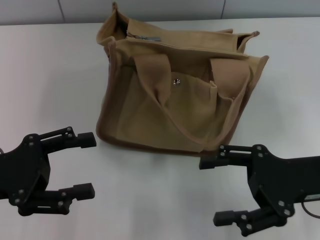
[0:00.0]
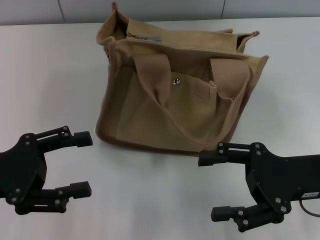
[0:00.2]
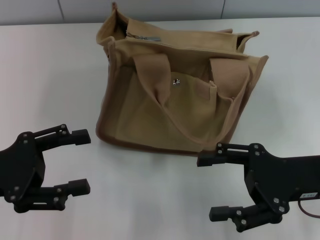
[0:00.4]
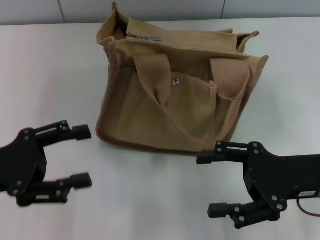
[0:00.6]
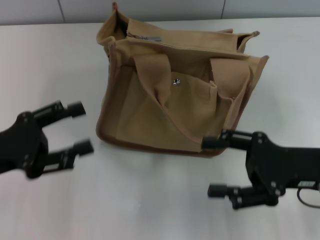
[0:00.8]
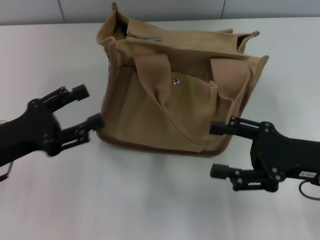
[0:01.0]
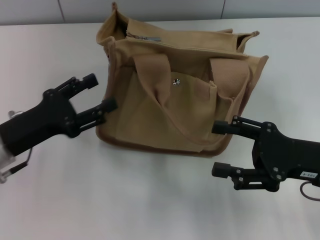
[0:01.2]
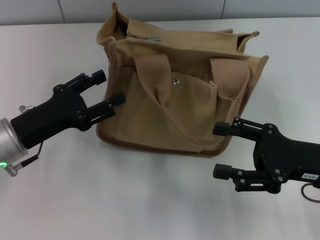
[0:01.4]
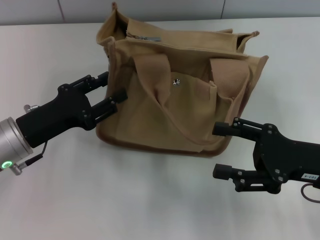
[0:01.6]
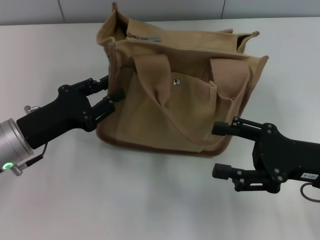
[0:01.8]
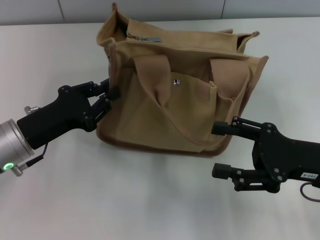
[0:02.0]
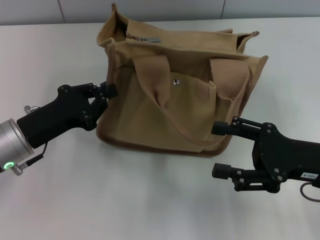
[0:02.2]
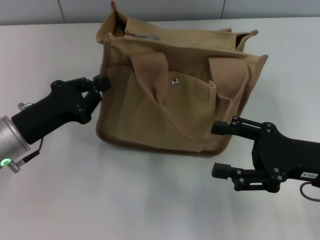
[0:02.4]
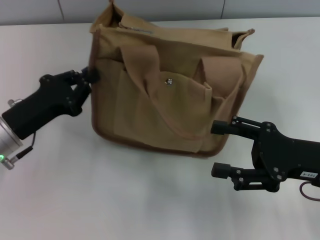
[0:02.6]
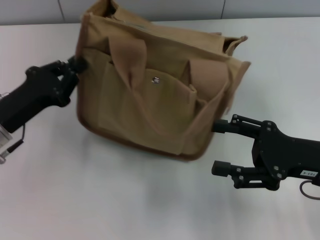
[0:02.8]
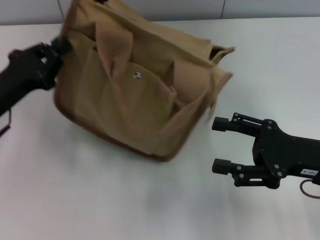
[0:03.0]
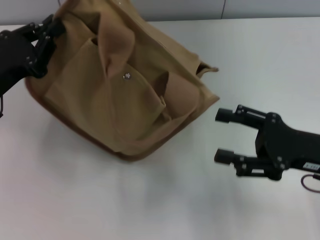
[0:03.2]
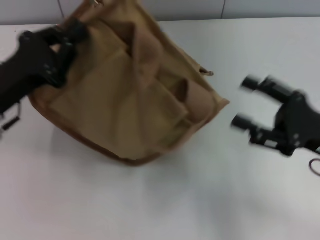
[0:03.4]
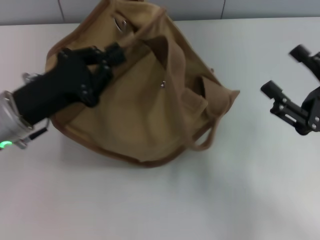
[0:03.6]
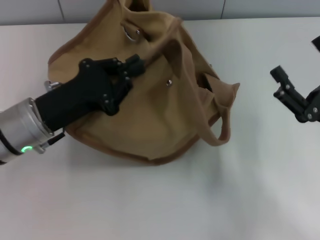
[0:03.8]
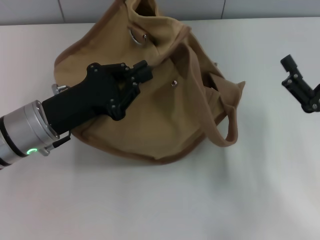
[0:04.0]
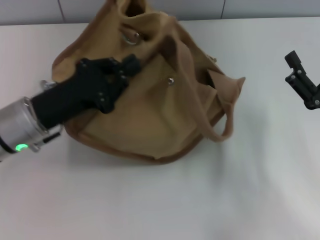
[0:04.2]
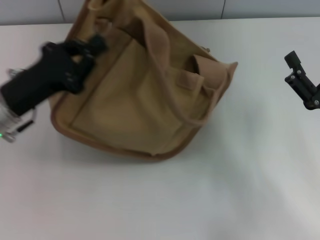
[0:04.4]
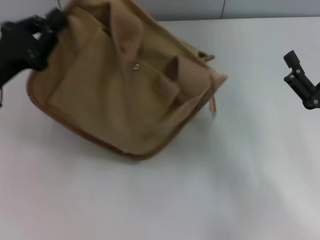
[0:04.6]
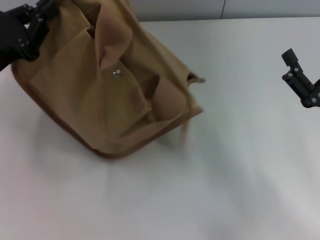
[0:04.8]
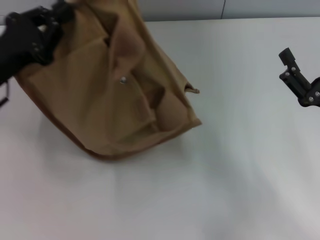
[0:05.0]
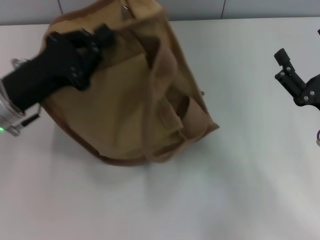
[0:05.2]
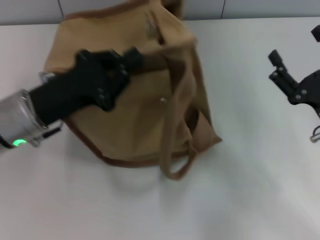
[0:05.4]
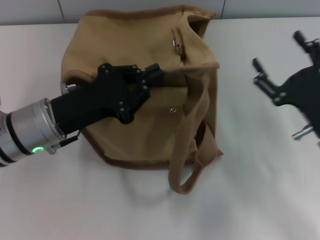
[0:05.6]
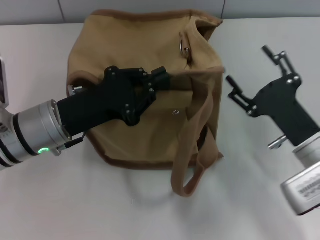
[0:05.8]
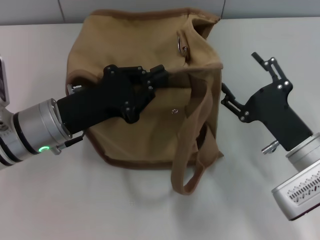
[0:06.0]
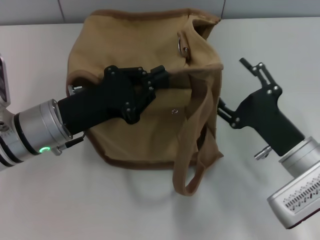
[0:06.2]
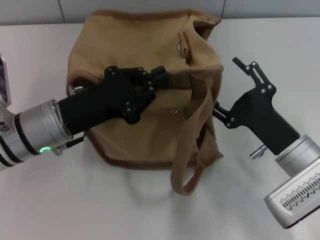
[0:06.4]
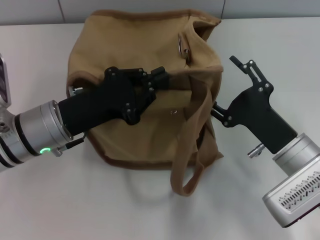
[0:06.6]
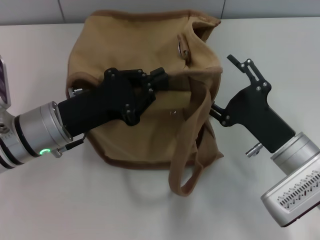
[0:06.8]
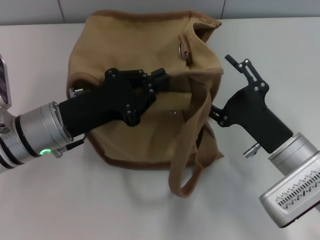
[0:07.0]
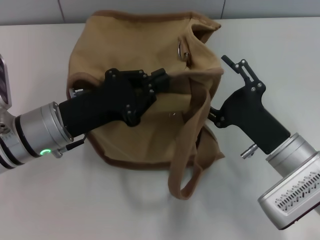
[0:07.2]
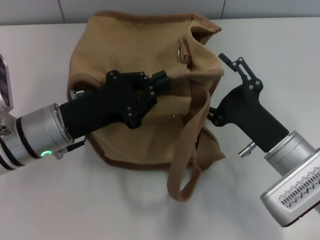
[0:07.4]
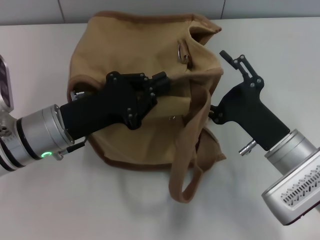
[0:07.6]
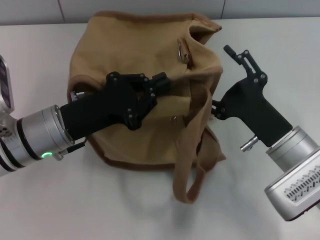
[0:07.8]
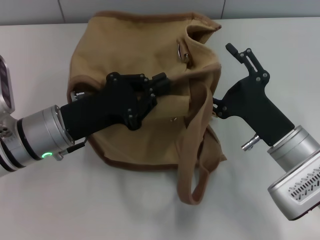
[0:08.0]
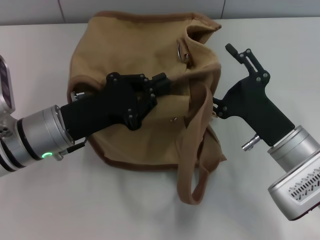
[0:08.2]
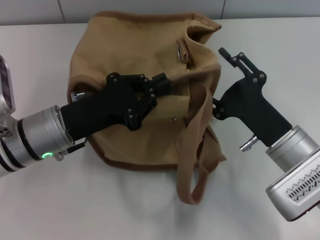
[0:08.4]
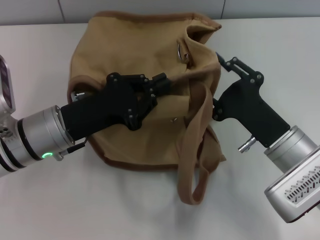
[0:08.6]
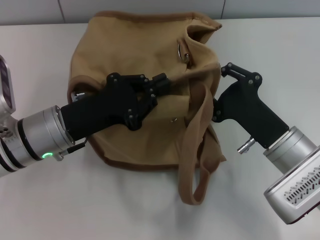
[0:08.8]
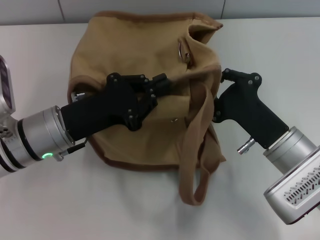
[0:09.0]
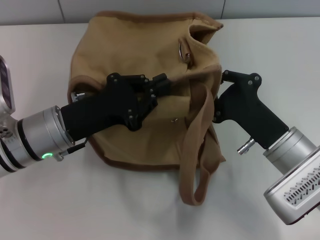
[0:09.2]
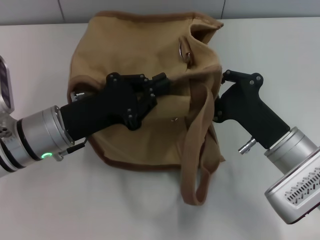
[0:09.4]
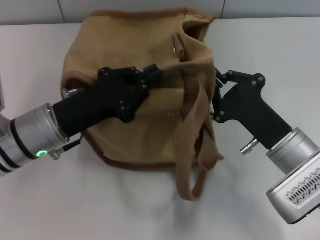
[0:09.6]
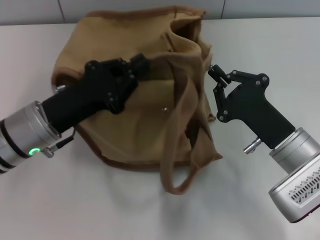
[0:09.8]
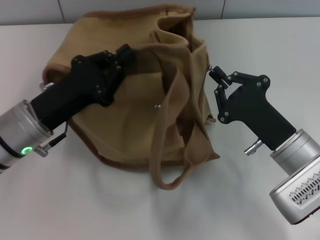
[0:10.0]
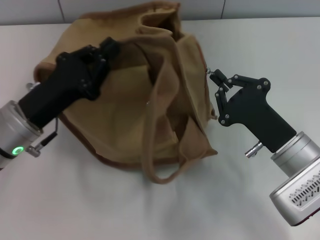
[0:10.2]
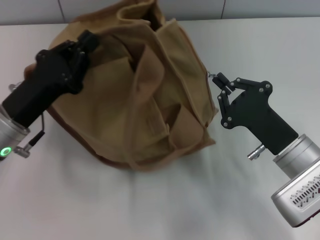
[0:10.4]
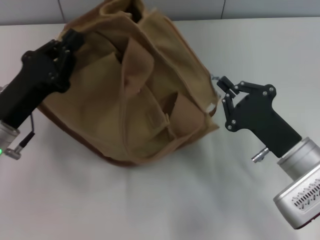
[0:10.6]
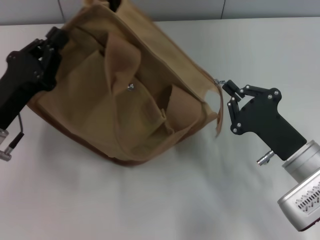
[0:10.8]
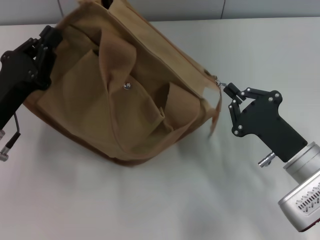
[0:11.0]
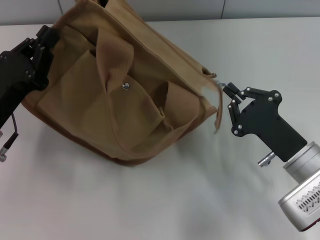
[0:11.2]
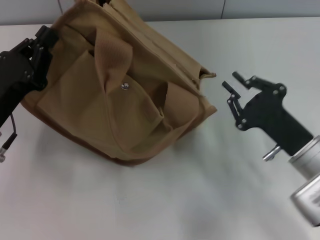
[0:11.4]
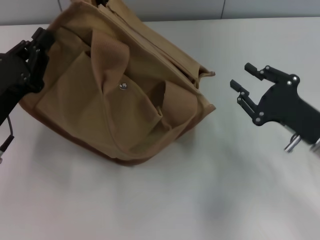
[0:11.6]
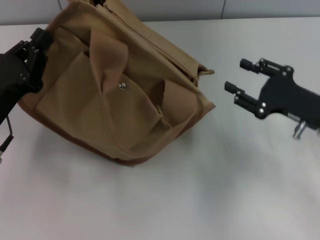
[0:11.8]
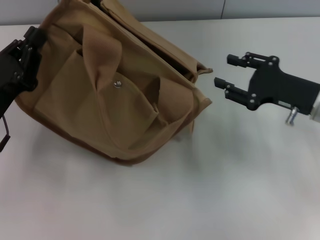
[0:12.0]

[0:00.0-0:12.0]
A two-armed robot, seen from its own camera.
Step, 0:00.0 to 0:11.2: Pull open the zipper with your right hand.
0:00.0 to 0:01.6: The left gripper shifts approximately 5 cm forward and to the right.
0:01.6 to 0:03.0: The left gripper closes its fingers.
0:04.4 to 0:06.0: The right gripper is displaced to the left by some 5 cm, while the left gripper travels to the right by approximately 5 cm.
0:07.6 to 0:09.0: The right gripper closes.
0:10.4 to 0:12.0: The right gripper travels forward and to the right by about 10 cm, and opens its fingers.

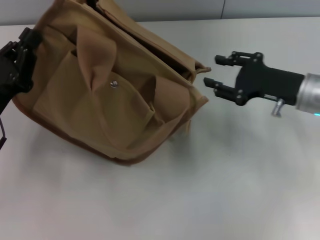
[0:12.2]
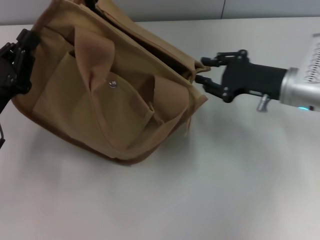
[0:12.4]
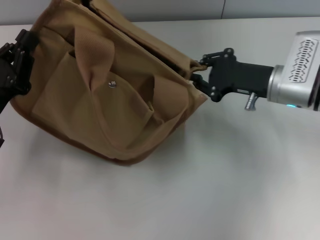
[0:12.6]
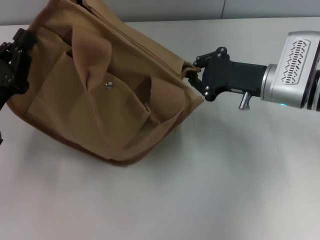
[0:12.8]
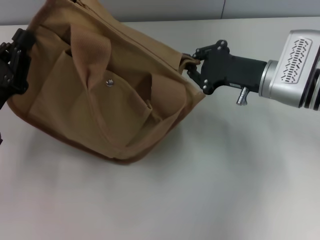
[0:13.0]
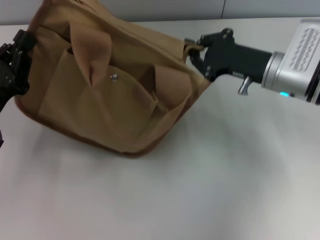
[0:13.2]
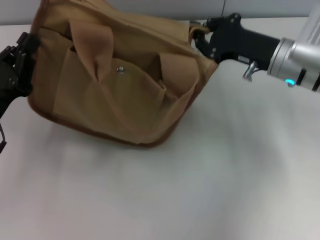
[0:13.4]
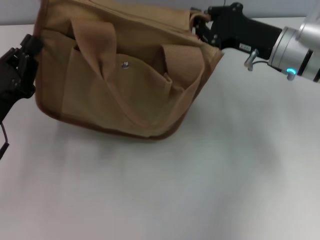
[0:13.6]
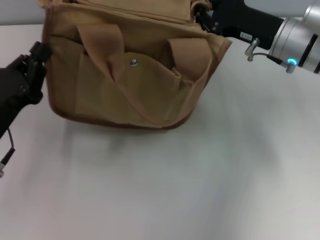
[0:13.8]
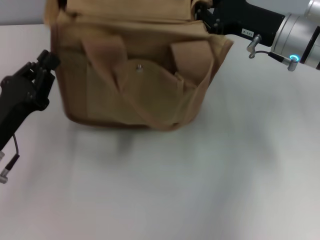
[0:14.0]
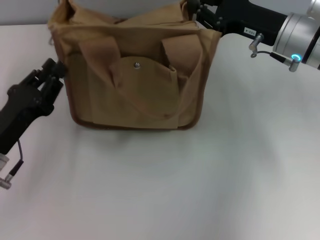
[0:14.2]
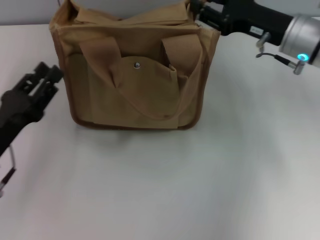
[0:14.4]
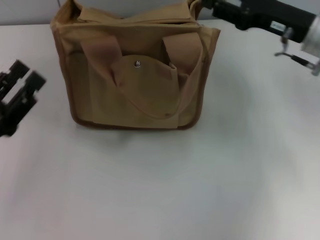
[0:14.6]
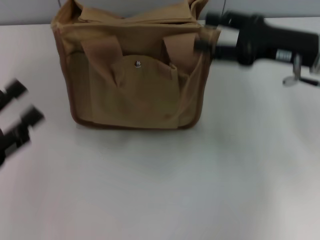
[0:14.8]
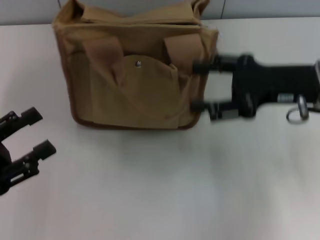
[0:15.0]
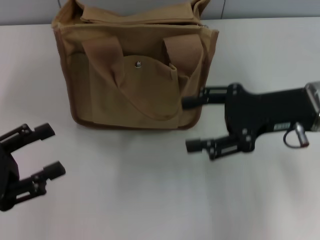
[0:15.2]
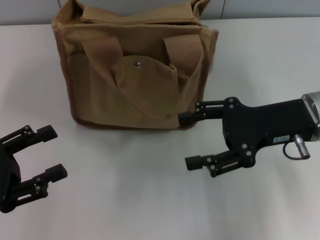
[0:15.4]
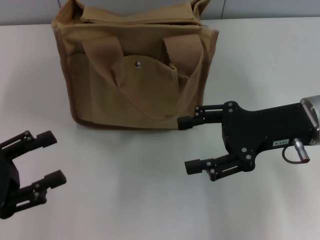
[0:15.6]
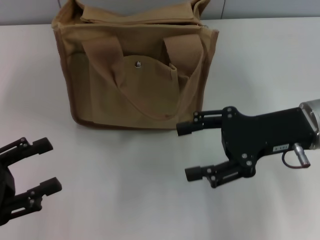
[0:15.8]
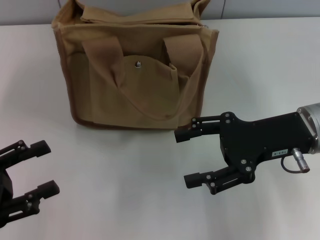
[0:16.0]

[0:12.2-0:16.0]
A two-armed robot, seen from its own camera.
Step, 0:12.2 to 0:14.0: Grab the bag with your left hand.
0:12.2 to 0:13.4: The right gripper ends up roughly 5 cm from where it was, and closes its fingers.
0:13.4 to 0:14.8: The right gripper moves some 5 cm, and opens its fingers, while the left gripper is displaced backward by about 5 cm, and opens.
0:14.8 to 0:16.0: The right gripper is displaced backward by about 5 cm.

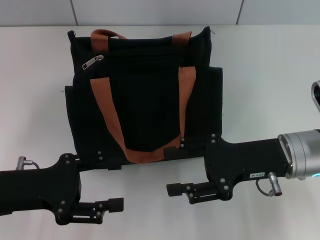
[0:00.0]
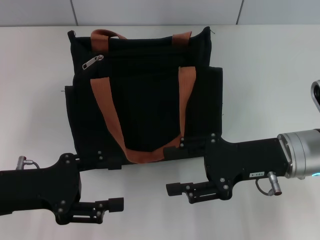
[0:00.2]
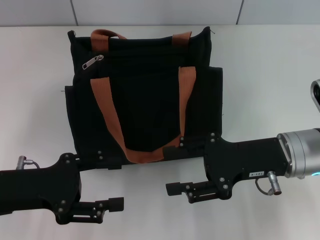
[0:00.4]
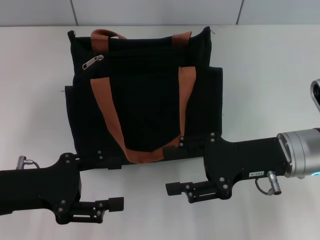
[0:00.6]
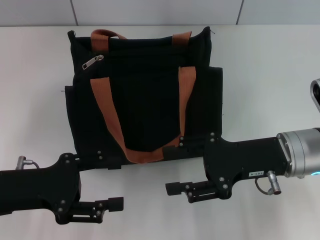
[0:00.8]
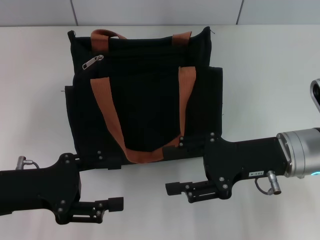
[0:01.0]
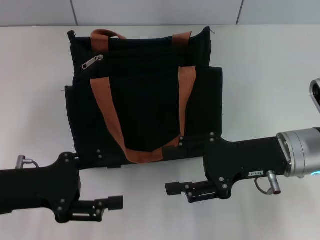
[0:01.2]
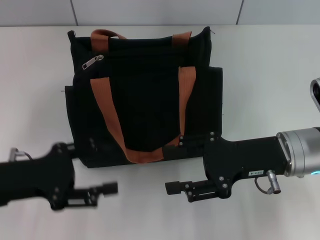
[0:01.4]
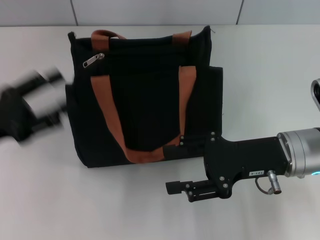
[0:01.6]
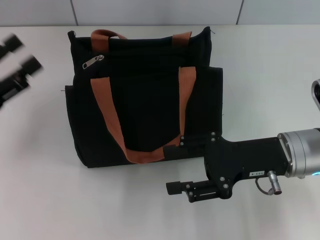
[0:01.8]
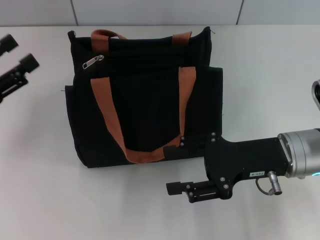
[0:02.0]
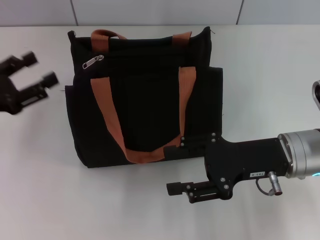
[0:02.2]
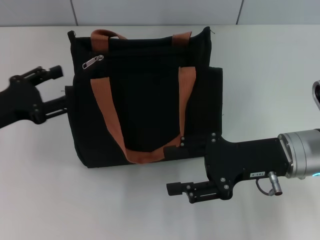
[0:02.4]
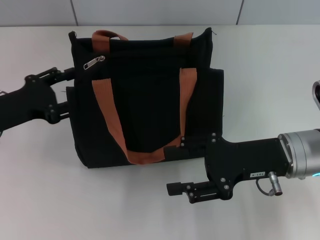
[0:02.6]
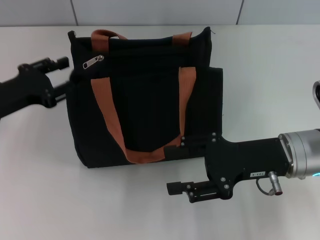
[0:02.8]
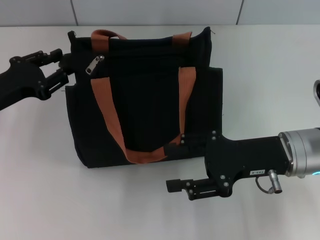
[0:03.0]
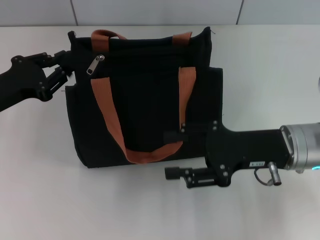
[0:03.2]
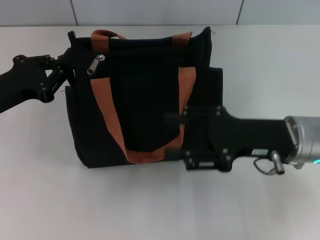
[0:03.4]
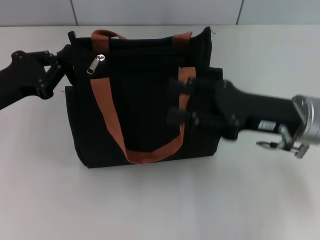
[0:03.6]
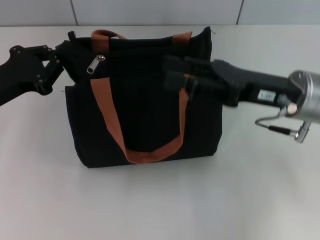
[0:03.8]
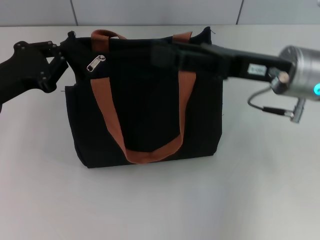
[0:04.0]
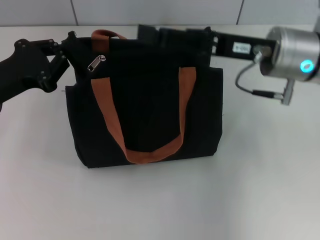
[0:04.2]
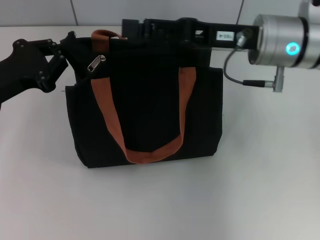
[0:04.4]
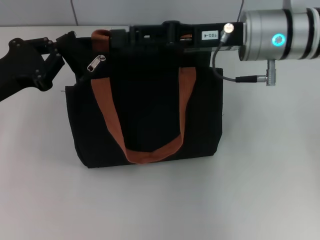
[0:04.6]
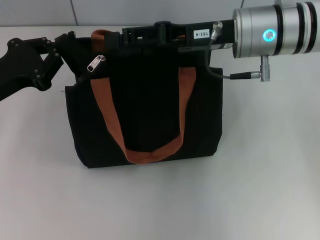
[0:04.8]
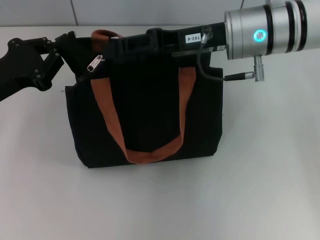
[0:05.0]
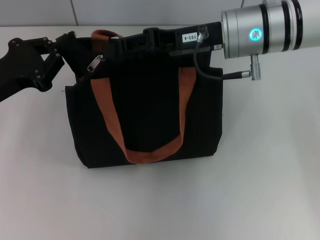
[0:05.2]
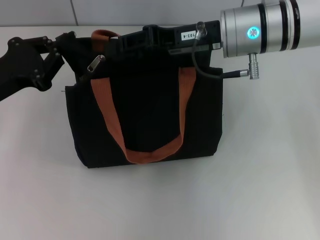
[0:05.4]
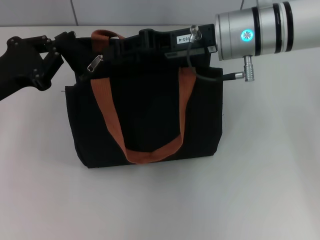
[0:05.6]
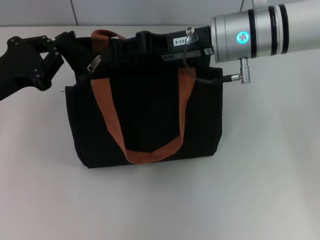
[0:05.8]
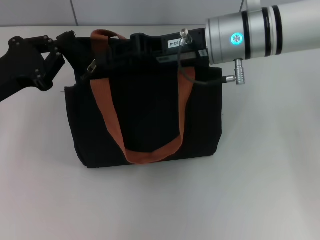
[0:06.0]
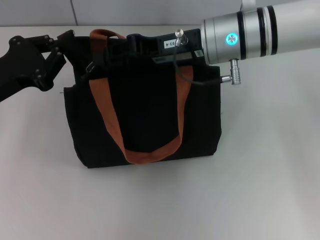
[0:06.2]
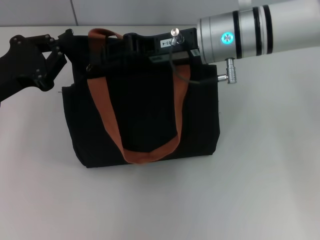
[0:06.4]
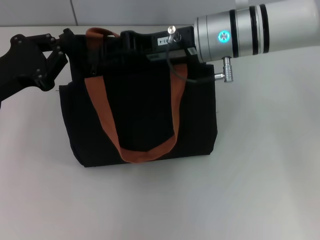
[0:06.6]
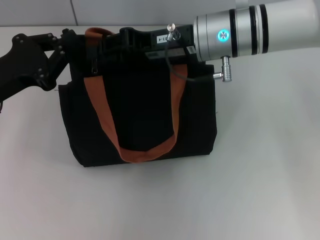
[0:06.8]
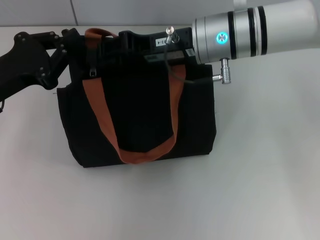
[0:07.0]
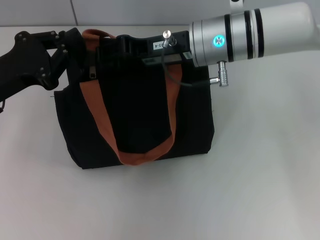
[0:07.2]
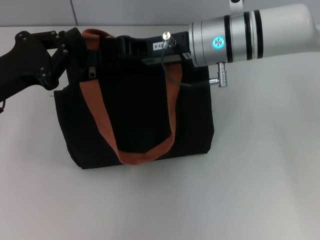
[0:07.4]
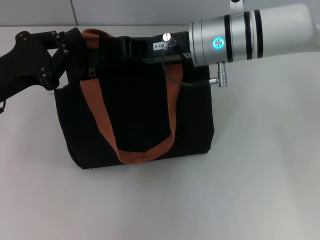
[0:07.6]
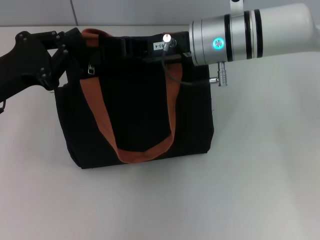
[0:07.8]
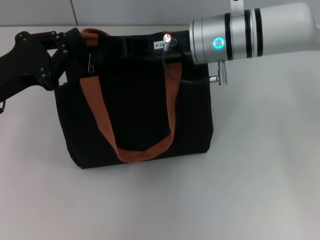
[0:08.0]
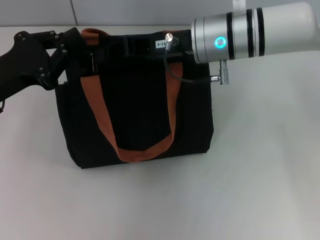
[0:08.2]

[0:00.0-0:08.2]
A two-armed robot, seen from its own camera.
0:01.6 to 0:03.2: The left gripper goes some 5 cm forward, and closes.
0:03.2 to 0:05.0: The right gripper shifts some 15 cm forward, upward and to the left; the left gripper closes up.
0:05.0 to 0:06.6: The right gripper closes.
0:06.6 to 0:08.2: The right gripper closes its fingers.
